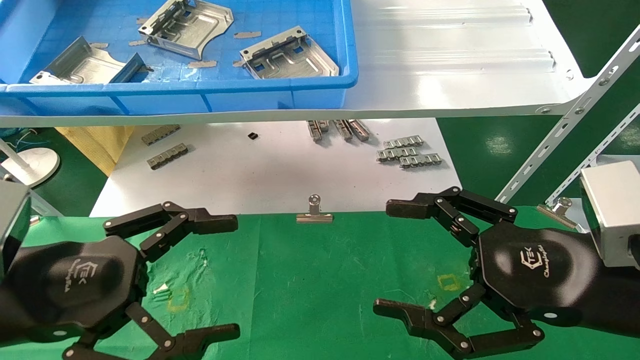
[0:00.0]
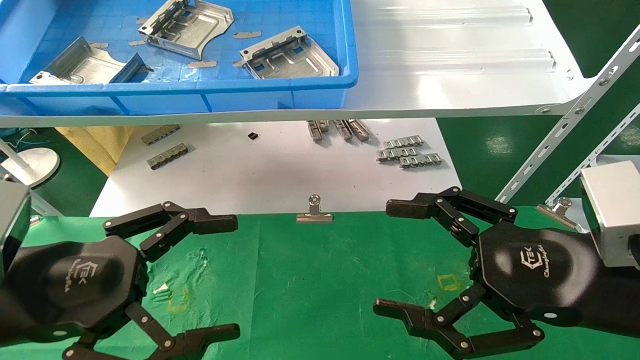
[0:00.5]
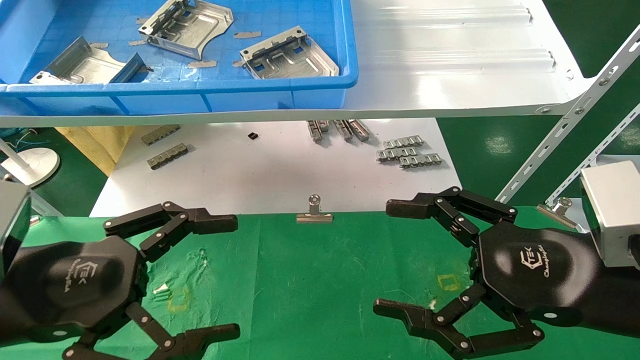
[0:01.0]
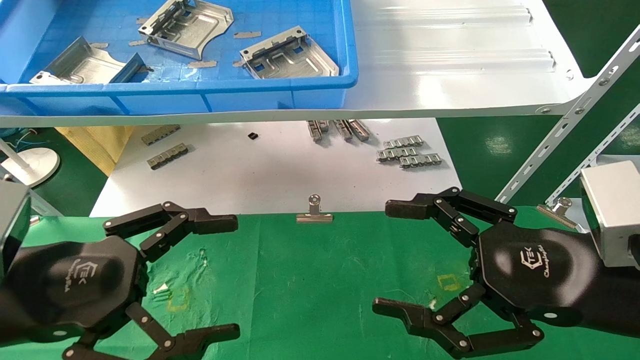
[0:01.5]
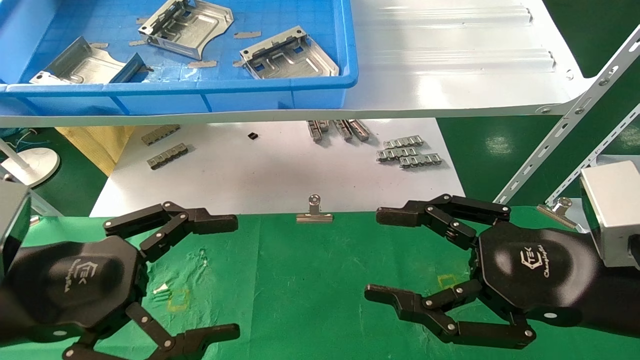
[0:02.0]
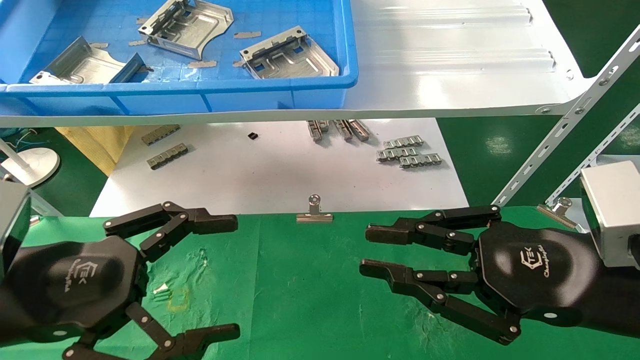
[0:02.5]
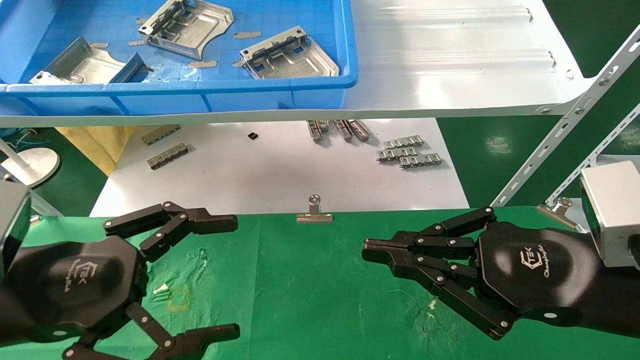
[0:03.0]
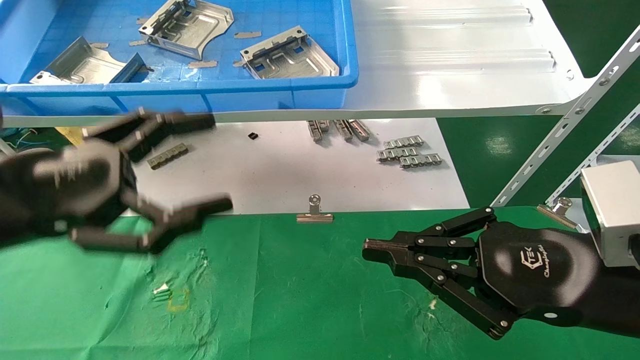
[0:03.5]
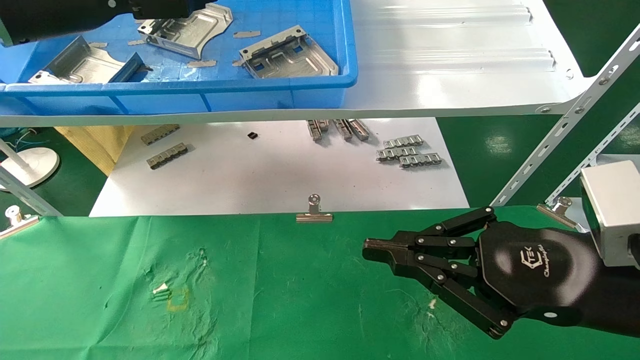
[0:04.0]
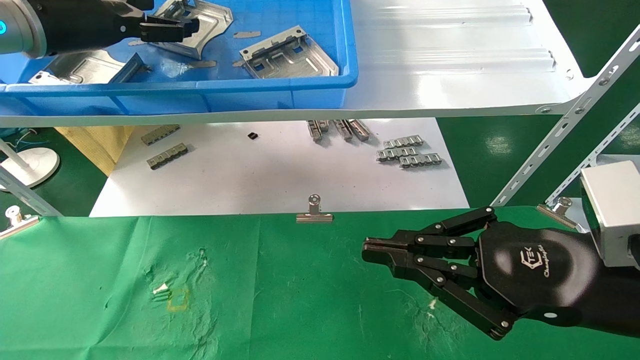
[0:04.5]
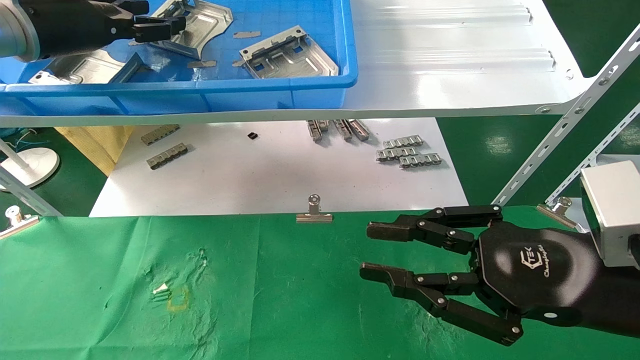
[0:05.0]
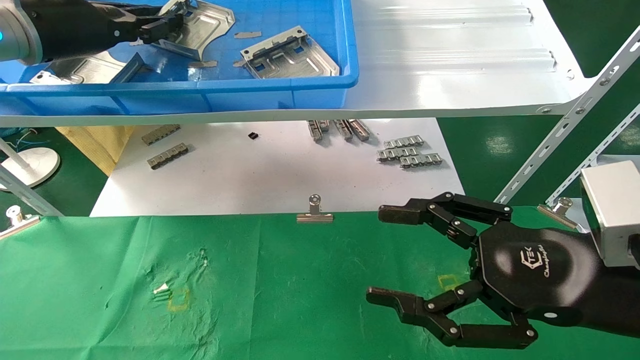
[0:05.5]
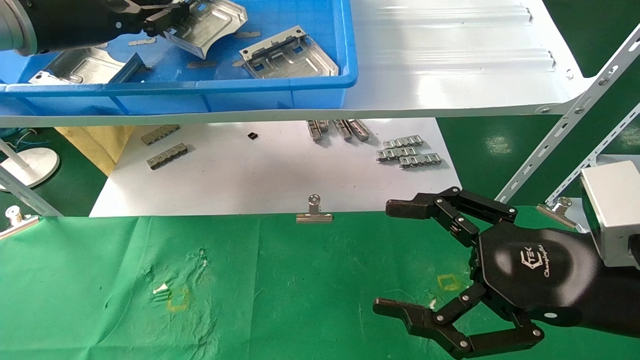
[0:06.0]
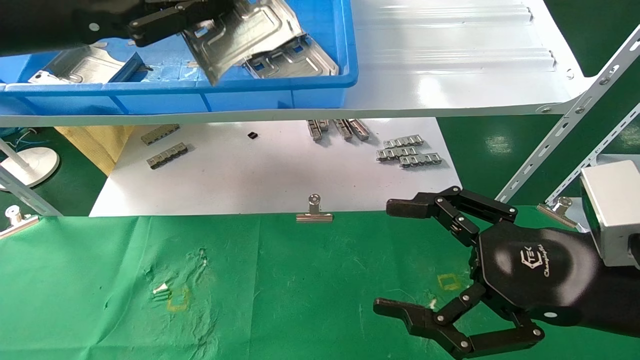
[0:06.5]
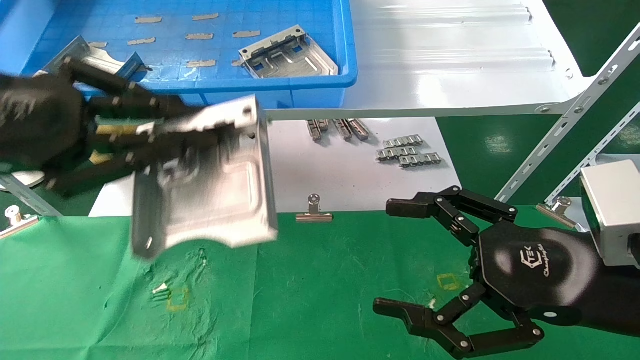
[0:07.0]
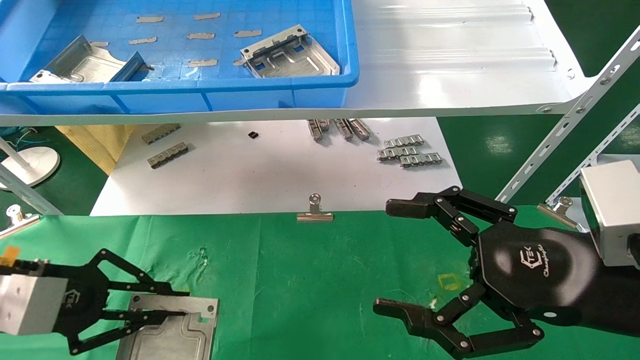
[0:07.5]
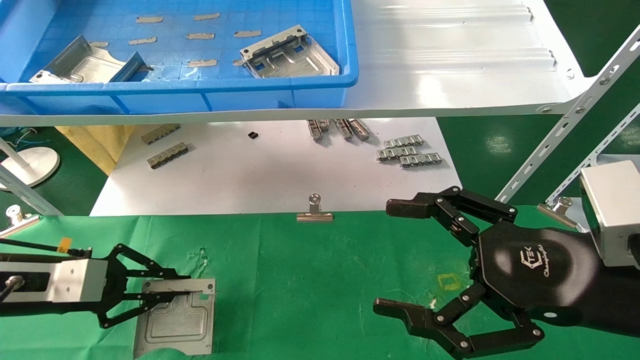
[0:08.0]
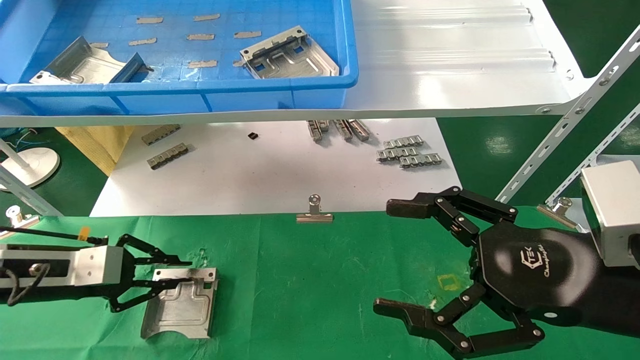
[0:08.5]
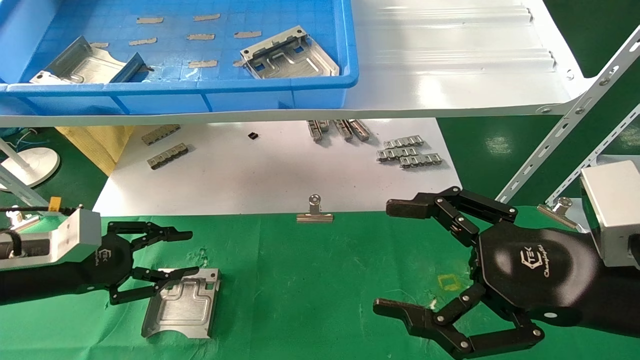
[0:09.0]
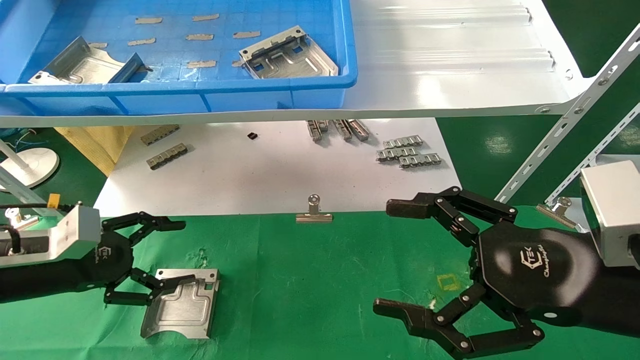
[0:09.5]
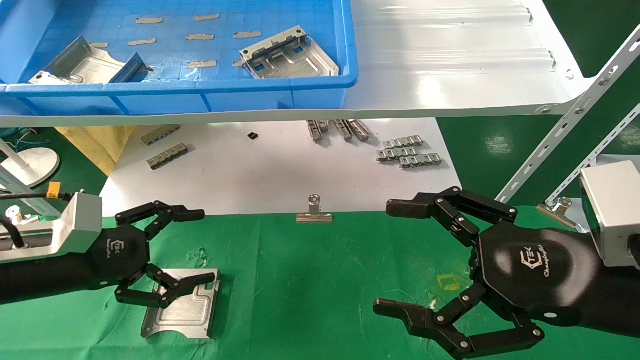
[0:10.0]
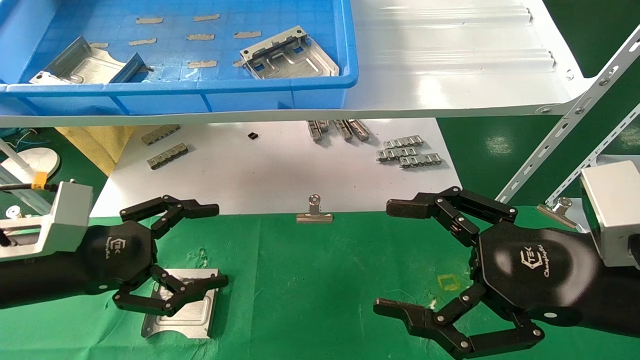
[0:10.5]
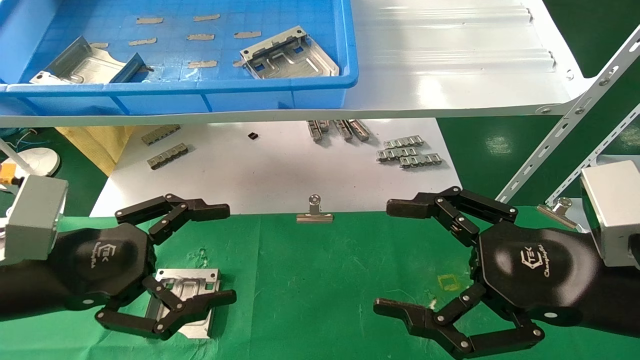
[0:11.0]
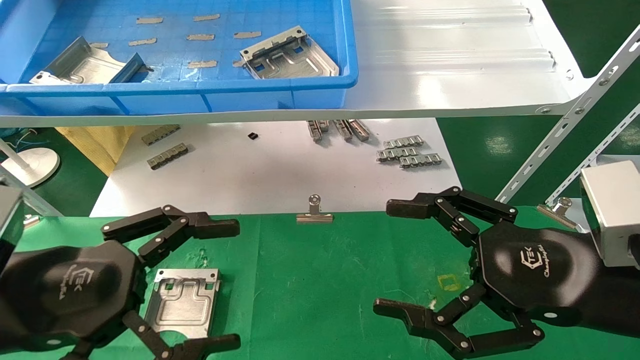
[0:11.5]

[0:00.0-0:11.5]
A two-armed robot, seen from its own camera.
Task of the whole recording: use the mechanical arm to pick up the parts and place them on the table.
Step, 0:02.5 to 0:05.5: Pick up the hard drive bracket from the feeding area.
Step, 0:06.0 to 0:09.0: Place the hard drive bracket into the box.
0:00.0 to 0:02.0: Both grippers stay about where they are.
0:02.0 to 0:04.0: The right gripper closes up. Meanwhile the left gripper is displaced upward and forward by approximately 25 cm.
0:04.0 to 0:06.0: The left gripper closes its fingers. The right gripper opens up.
0:06.0 to 0:07.5: The left gripper moves downward and backward, about 25 cm.
0:07.5 to 0:09.5: The left gripper goes roughly 10 cm forward and downward, and opens.
0:09.5 to 0:11.5: The left gripper is displaced backward, to the right and upward by some 15 cm.

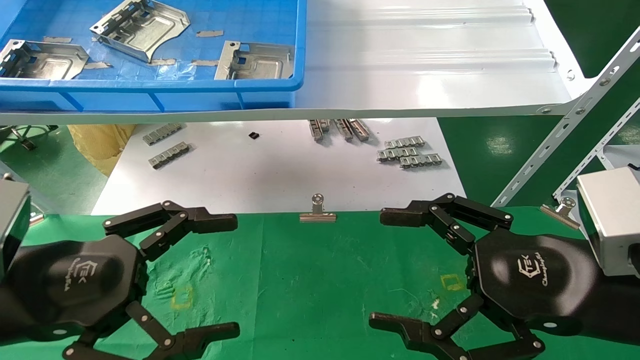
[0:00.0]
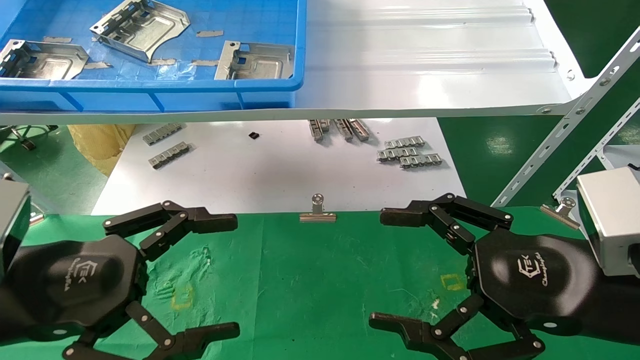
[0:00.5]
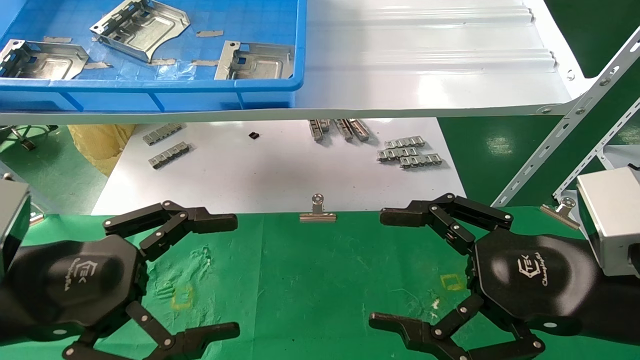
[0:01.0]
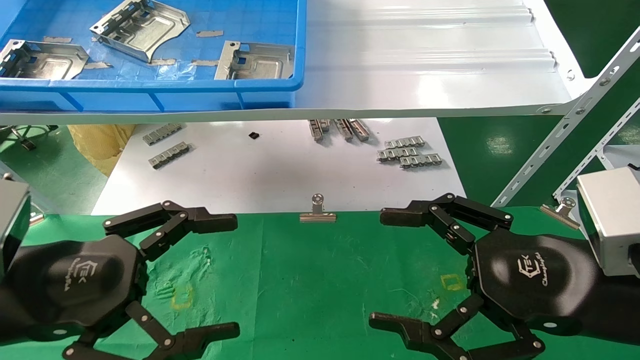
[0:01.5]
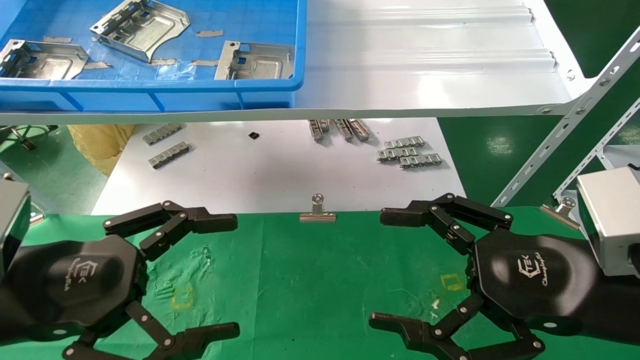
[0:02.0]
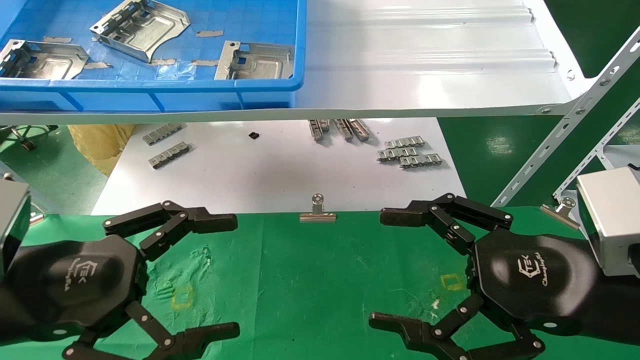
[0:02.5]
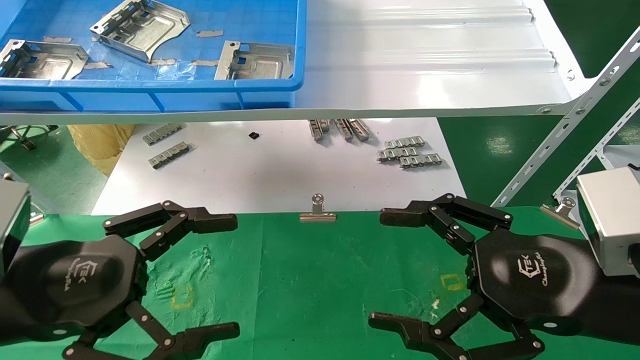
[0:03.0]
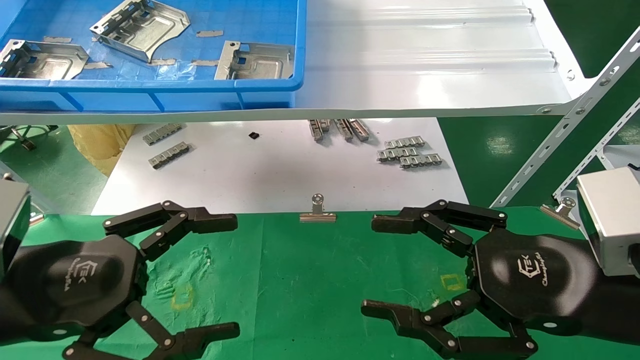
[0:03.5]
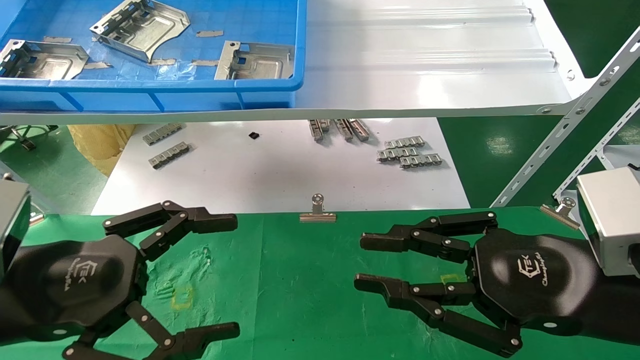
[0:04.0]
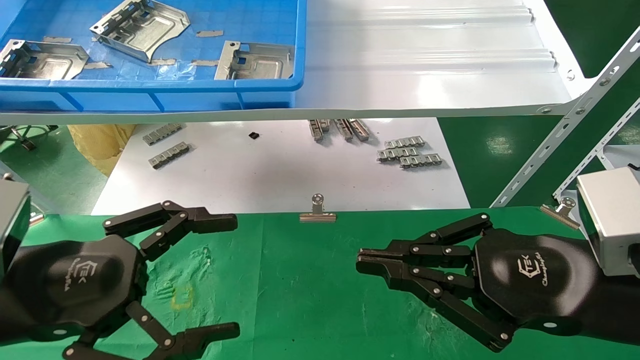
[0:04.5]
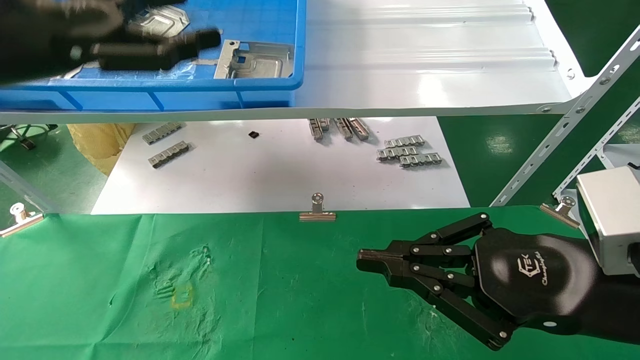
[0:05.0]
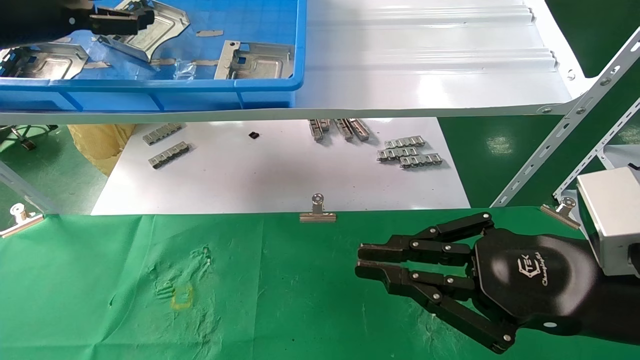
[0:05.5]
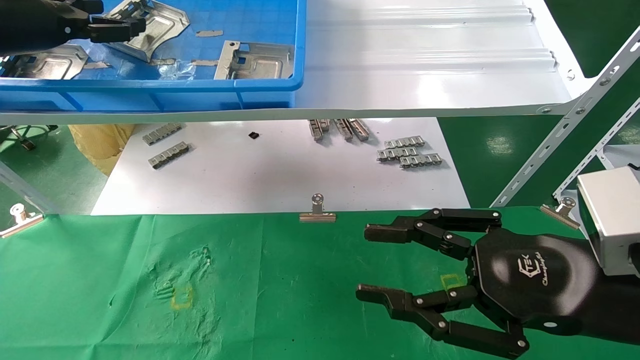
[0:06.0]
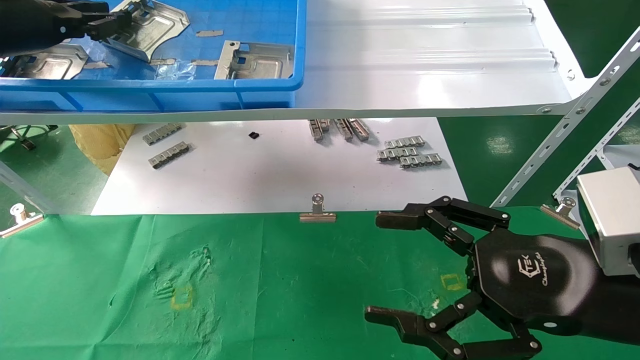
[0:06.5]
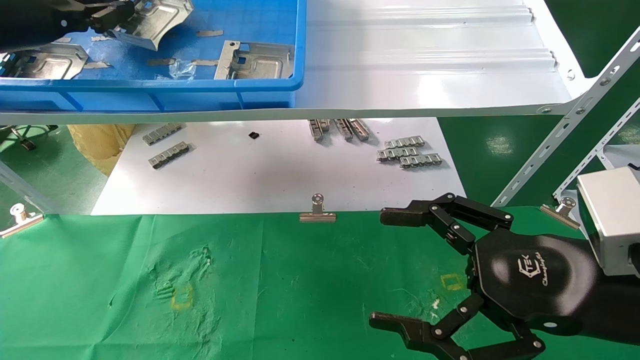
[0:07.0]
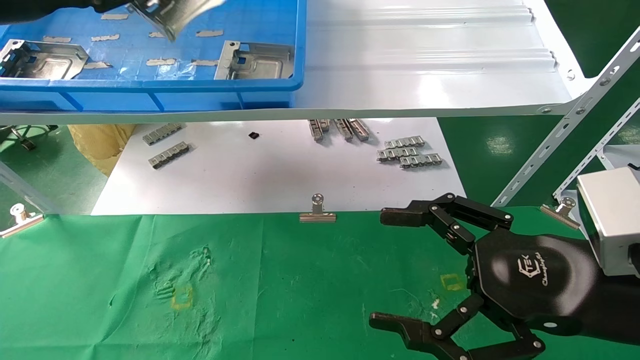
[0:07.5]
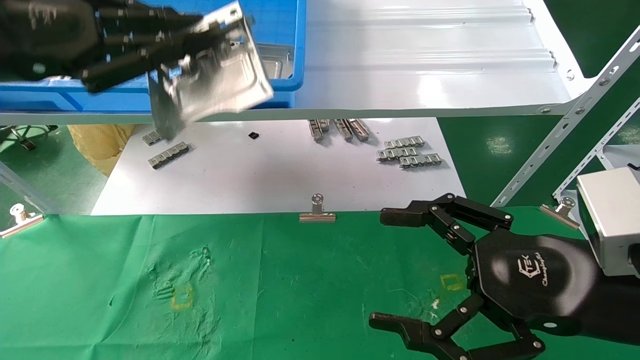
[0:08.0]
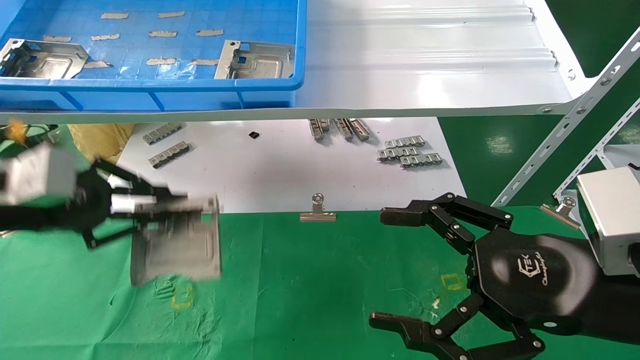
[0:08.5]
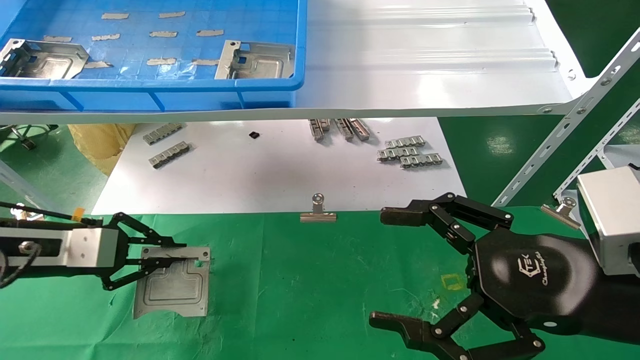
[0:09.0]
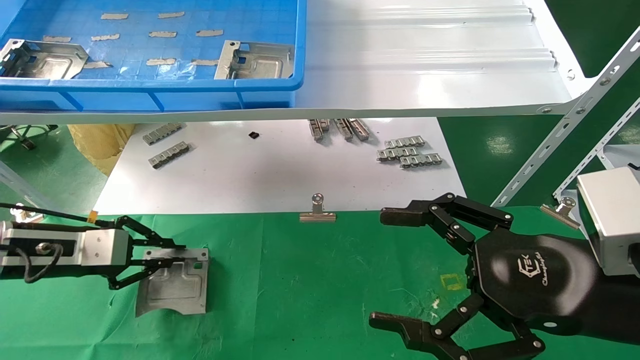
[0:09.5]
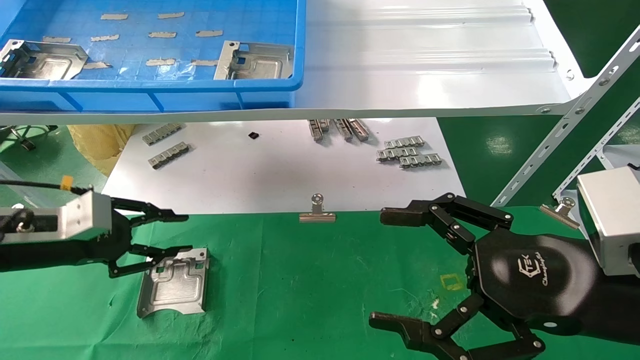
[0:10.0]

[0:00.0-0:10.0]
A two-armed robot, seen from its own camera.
Task of the whole recording: use the mechanical arm to pick up the parts and place them on the table.
Step, 0:05.0 to 0:06.5: Pick up the hard drive bracket from the feeding area.
Step, 0:07.0 to 0:09.5: Place the hard drive bracket into the box.
0:00.0 to 0:02.0: Both grippers stay put.
0:02.0 to 0:04.0: The right gripper closes.
0:04.0 to 0:06.0: The left gripper shifts roughly 30 cm upward, forward and to the left; the right gripper closes and opens again.
0:06.0 to 0:08.0: The left gripper is displaced backward by about 15 cm, and closes its fingers, while the right gripper opens.
0:08.0 to 0:10.0: The left gripper is displaced downward by some 20 cm.
